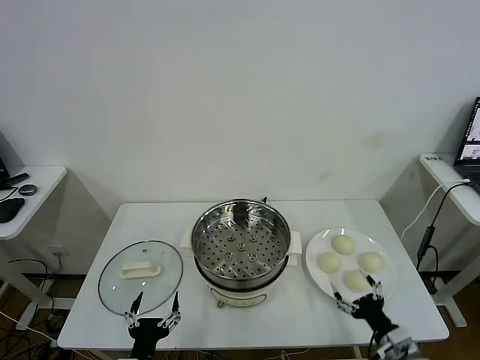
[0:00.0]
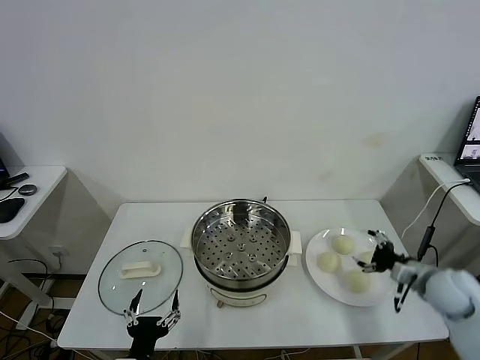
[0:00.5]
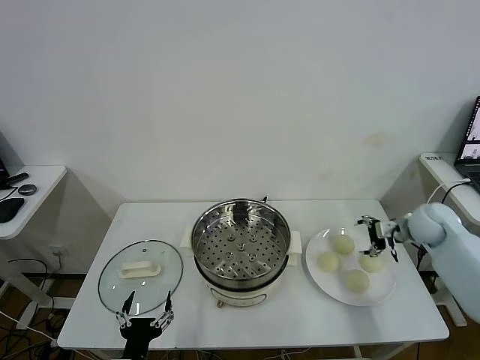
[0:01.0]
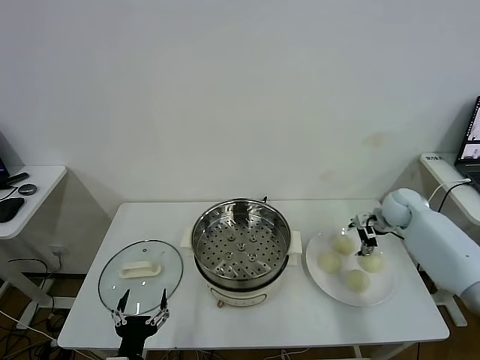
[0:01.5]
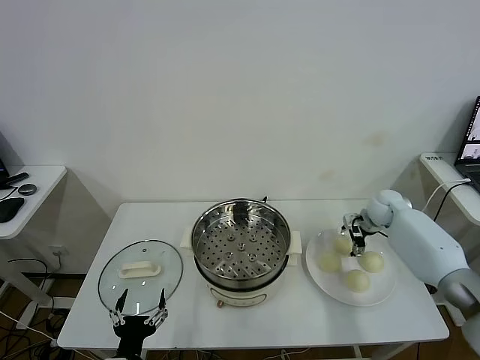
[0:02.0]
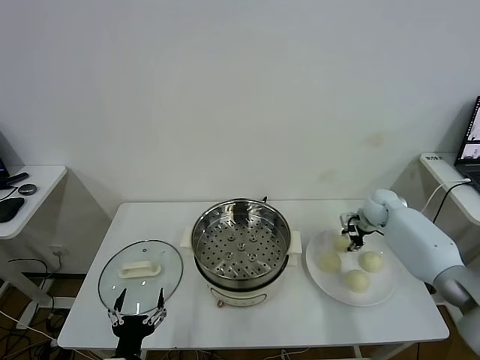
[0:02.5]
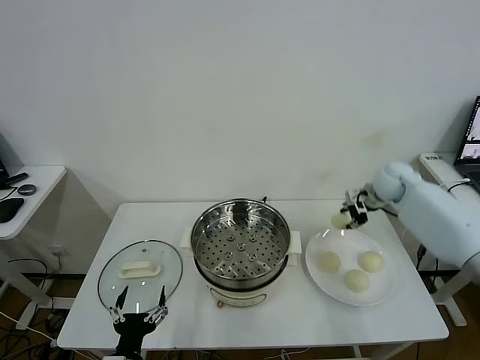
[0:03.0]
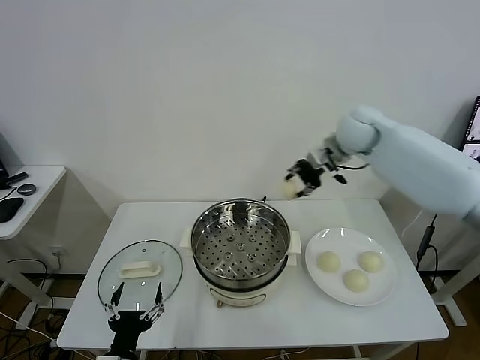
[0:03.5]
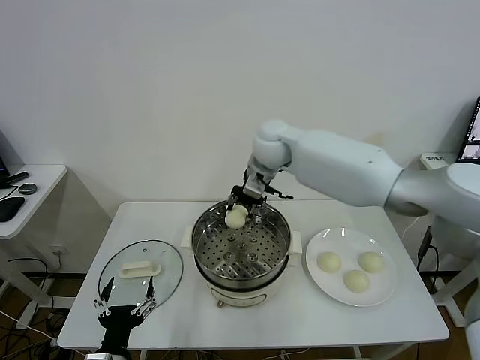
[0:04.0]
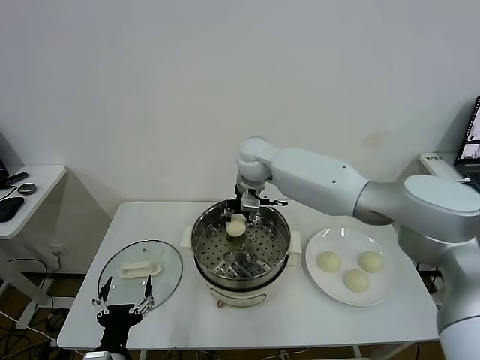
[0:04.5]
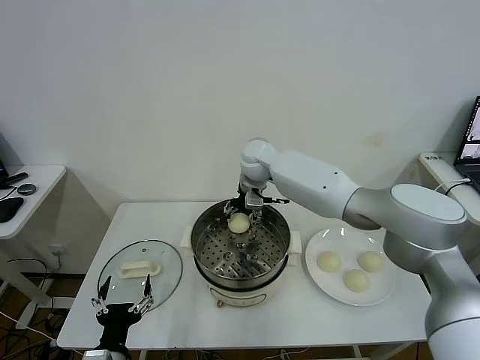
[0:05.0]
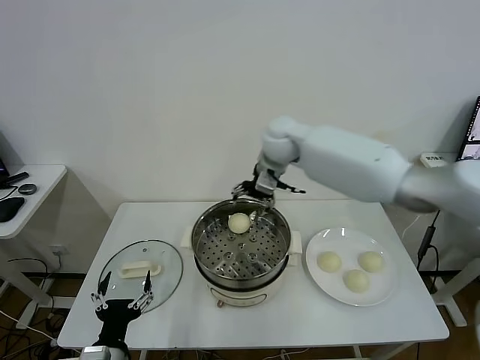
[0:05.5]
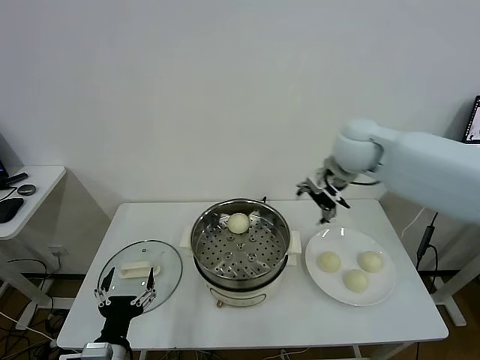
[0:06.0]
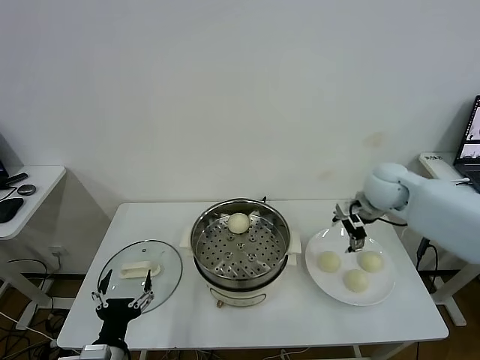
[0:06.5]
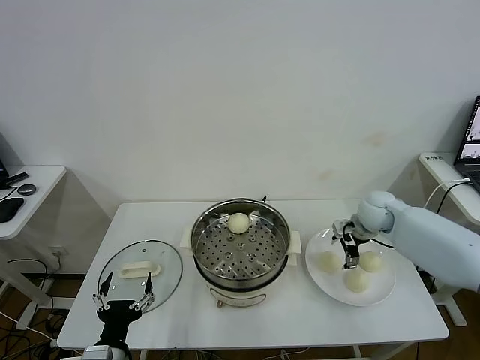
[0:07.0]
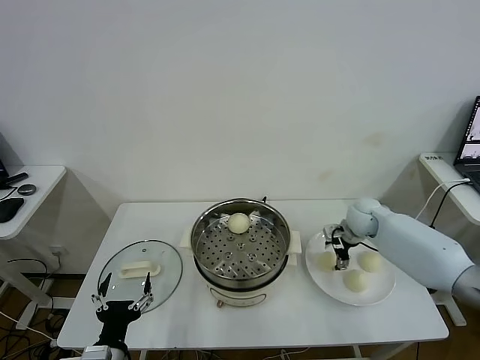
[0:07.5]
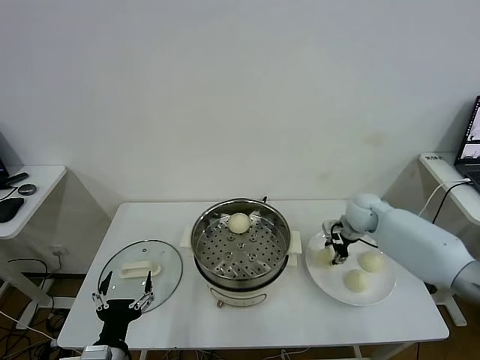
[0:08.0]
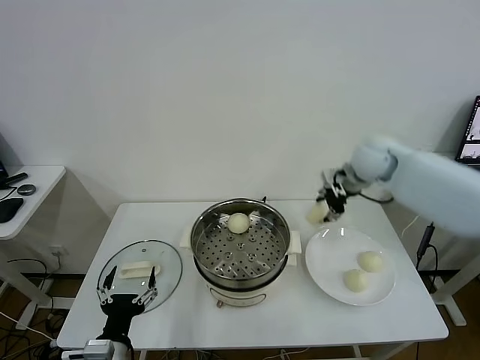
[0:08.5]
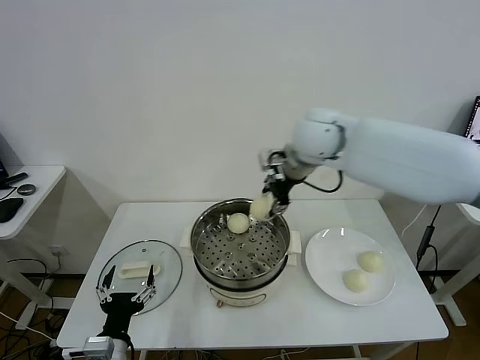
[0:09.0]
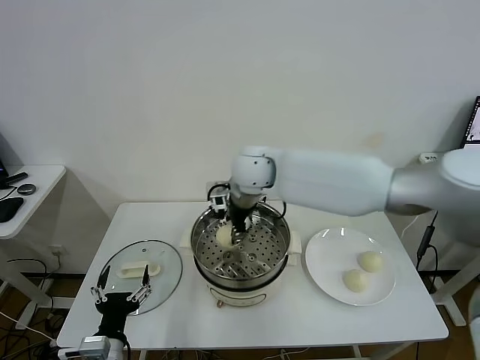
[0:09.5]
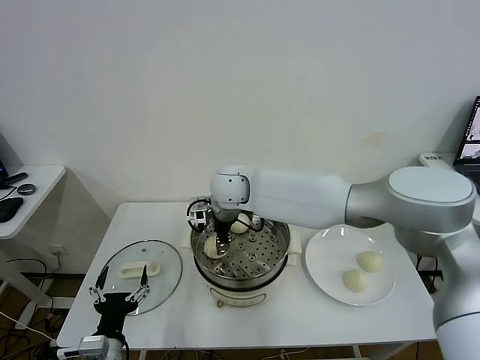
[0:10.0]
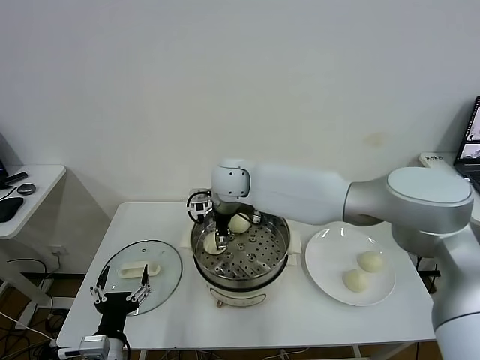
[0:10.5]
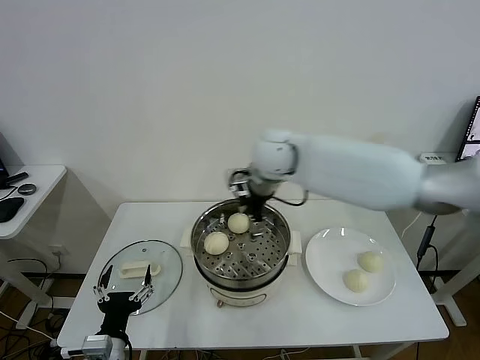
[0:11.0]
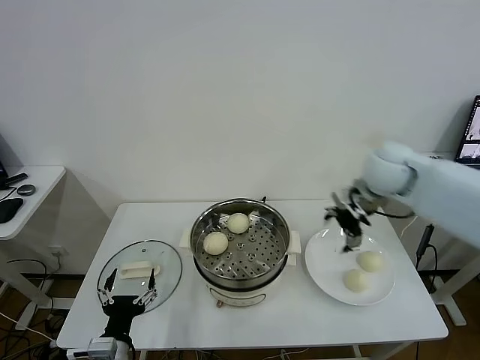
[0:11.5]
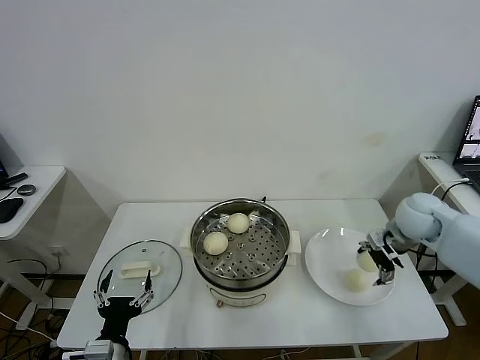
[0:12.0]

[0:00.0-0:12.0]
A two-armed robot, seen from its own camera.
Task of the whole recording: take steamed baozi put them in steamer.
Step, 0:00.0 to 0:02.0: Grasp the baozi in the plate with right gripper.
Step, 0:02.5 to 0:05.0: Place the baozi on the steamer with right gripper.
Step, 0:05.5 to 0:07.5: Grasp the baozi in the plate with right gripper.
Step, 0:08.0 to 0:10.5: Place the baozi on the steamer with right gripper.
0:02.0 to 0:04.0: The right gripper is displaced to the left and upward by about 40 cm, and closes.
0:04.0 to 0:06.0: The right gripper goes some 15 cm to the right, and opens up.
0:06.0 to 0:08.0: The right gripper goes some 25 cm downward and to the right, and closes its fingers.
0:08.0 to 0:10.0: The right gripper shifts roughly 35 cm to the left.
0:10.0 to 0:12.0: The right gripper heads to the right, covering about 40 cm, and opens its fingers.

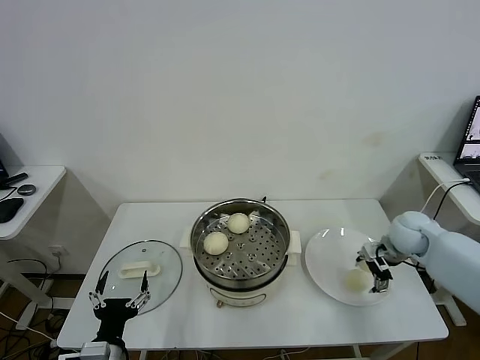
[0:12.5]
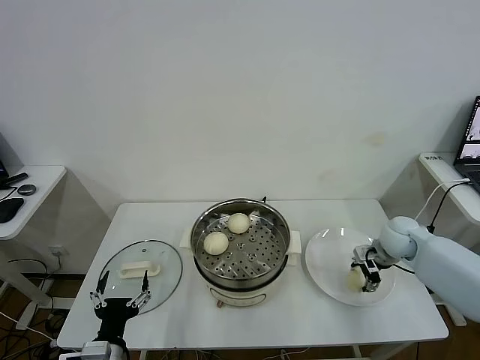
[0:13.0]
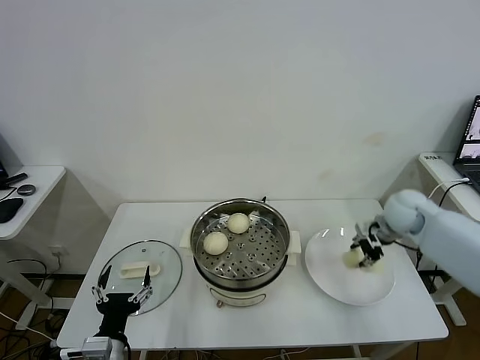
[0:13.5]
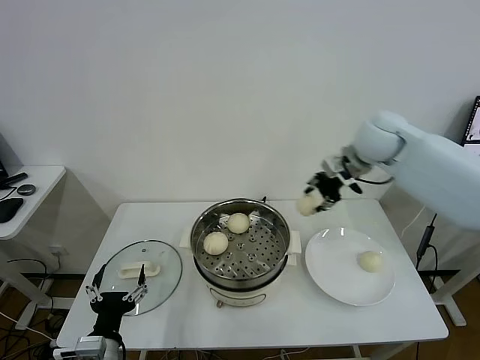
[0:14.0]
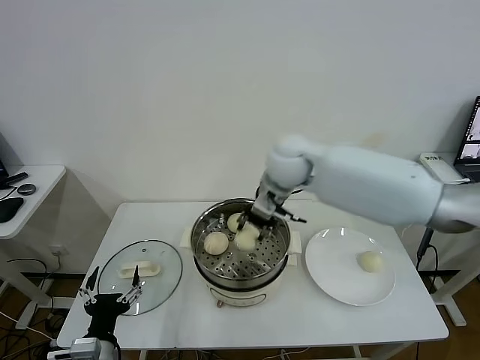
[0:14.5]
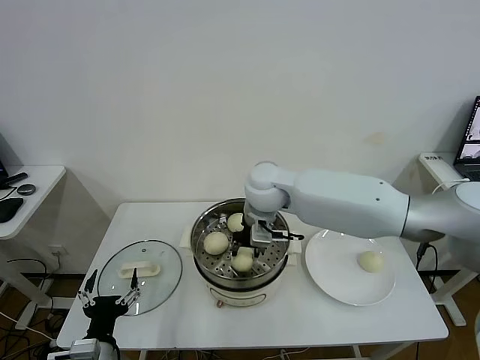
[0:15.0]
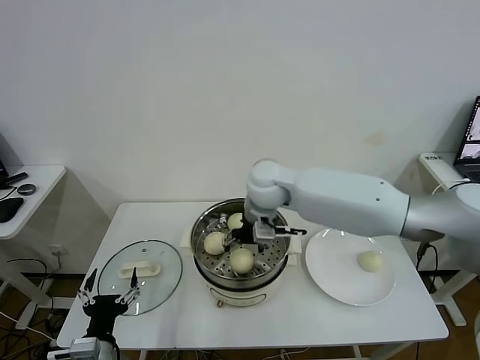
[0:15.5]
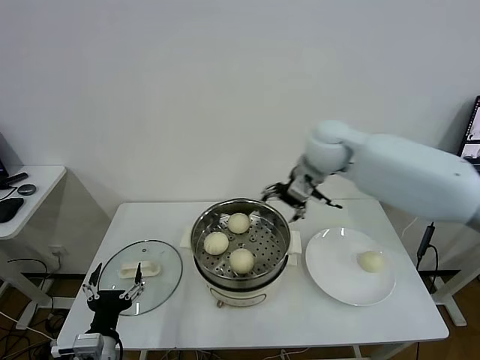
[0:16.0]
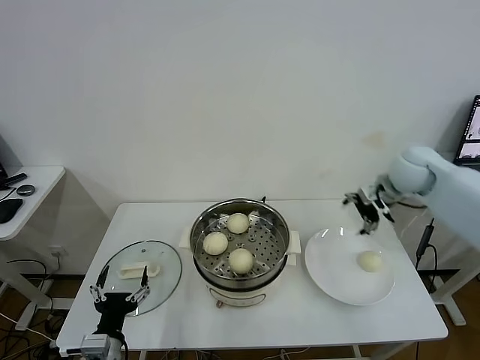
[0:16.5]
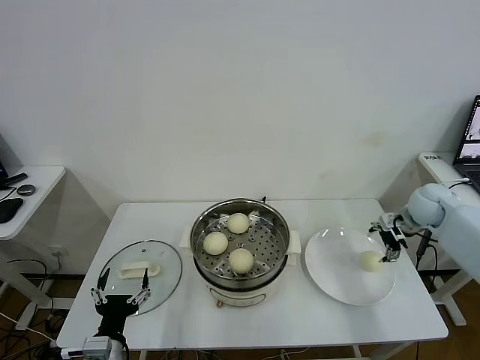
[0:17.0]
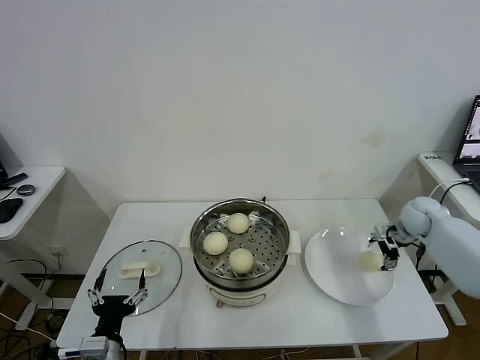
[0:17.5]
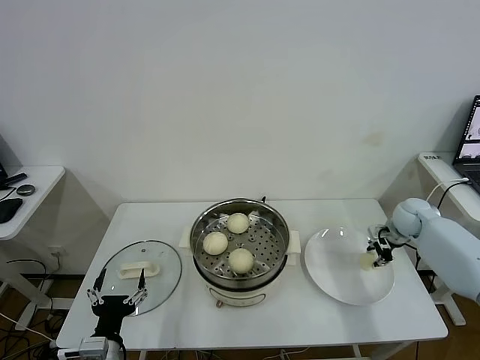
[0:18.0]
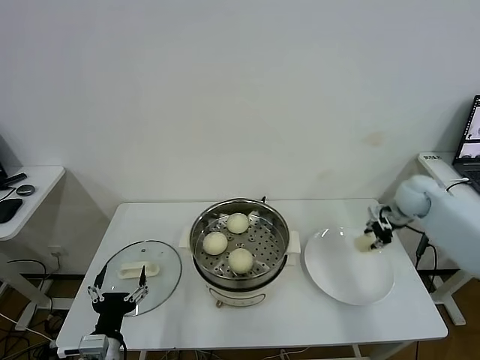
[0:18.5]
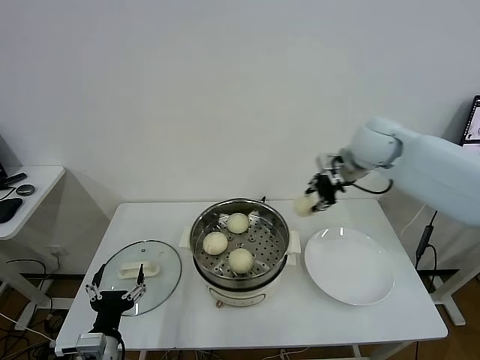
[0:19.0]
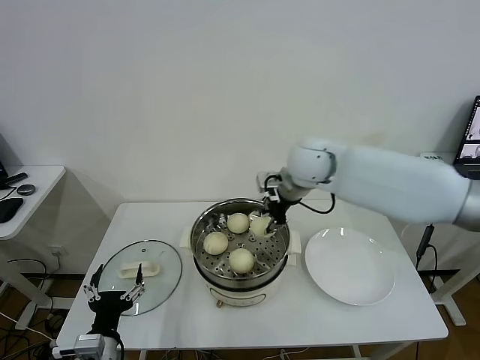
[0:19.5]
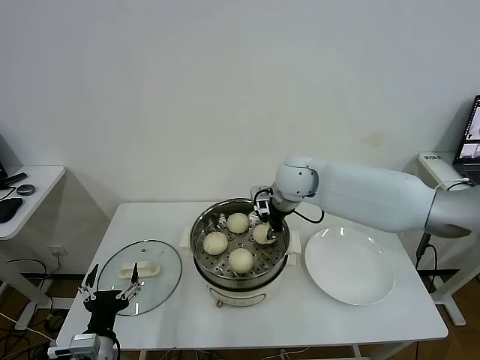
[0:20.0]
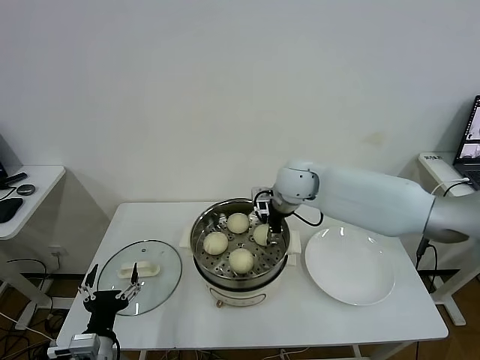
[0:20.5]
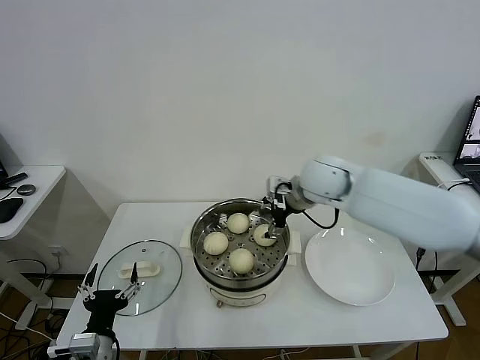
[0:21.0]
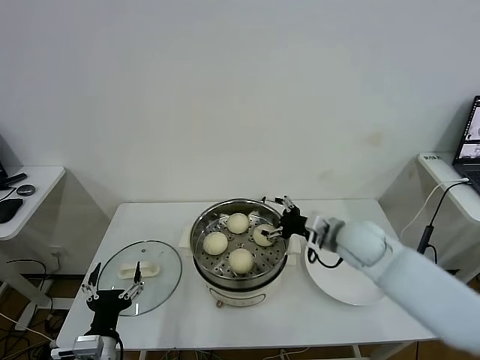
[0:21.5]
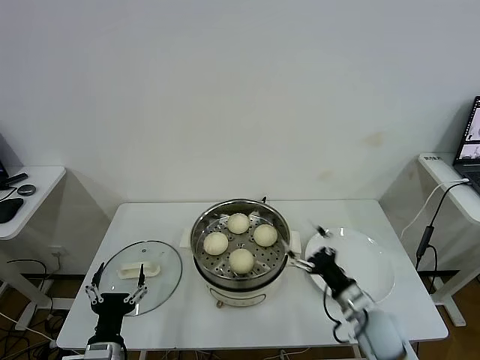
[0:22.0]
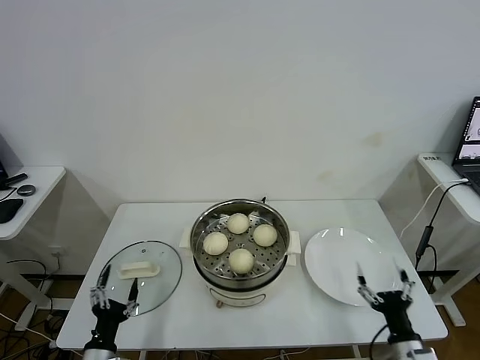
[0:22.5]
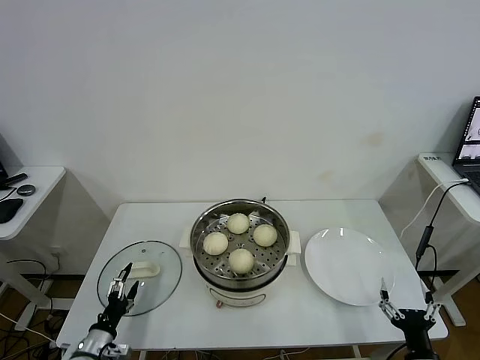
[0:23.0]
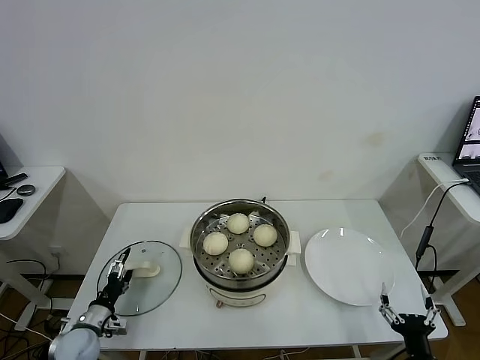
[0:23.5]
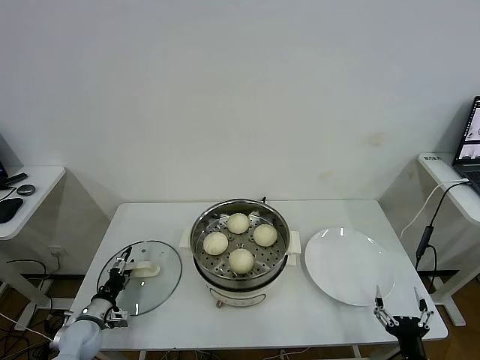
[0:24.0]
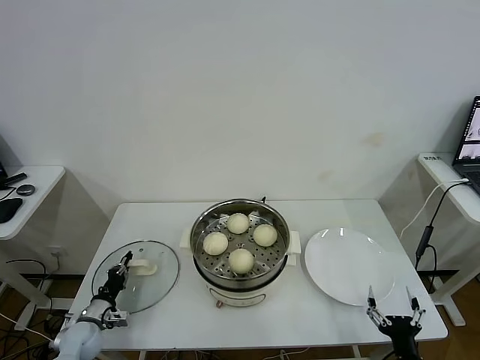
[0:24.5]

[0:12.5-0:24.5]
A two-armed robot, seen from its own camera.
Task of the whole recording: take steamed baozi put them in steamer.
Step, 0:13.5 to 0:15.5: Place the baozi on the steamer with right gripper.
Step, 0:16.0 to 0:18.0: Grasp the baozi in the plate with right gripper.
Step, 0:18.5 to 0:20.5: Place the baozi on the steamer with right gripper.
0:12.5 to 0:14.5: The right gripper goes approximately 35 cm to the left and upward, and closes up.
0:14.5 to 0:16.5: The right gripper moves to the right, some 30 cm, and opens its fingers.
0:16.5 to 0:18.5: The right gripper travels downward and to the right by about 10 cm, and closes its fingers.
0:18.5 to 0:20.5: The right gripper goes about 30 cm to the left, and opens.
0:20.5 to 0:22.5: The right gripper heads backward, downward and to the right, covering approximately 50 cm. Meanwhile the left gripper travels downward by roughly 5 cm.
0:22.5 to 0:24.5: The left gripper goes about 20 cm forward, to the left and downward, and closes. The right gripper goes some 5 cm backward.

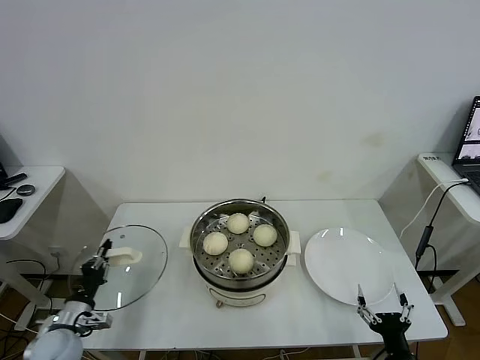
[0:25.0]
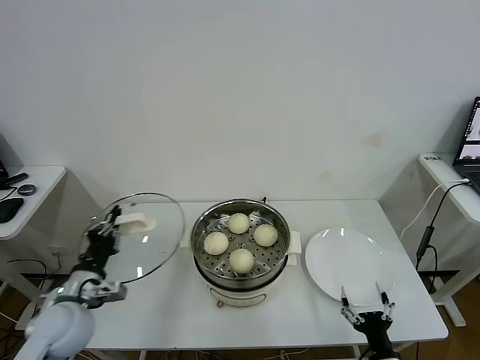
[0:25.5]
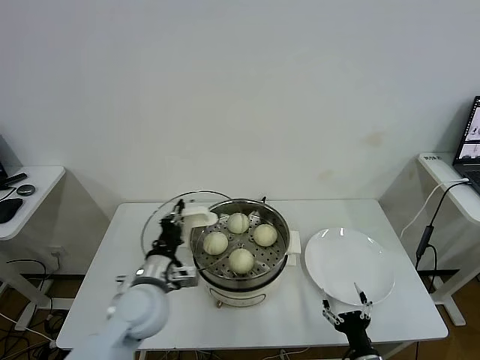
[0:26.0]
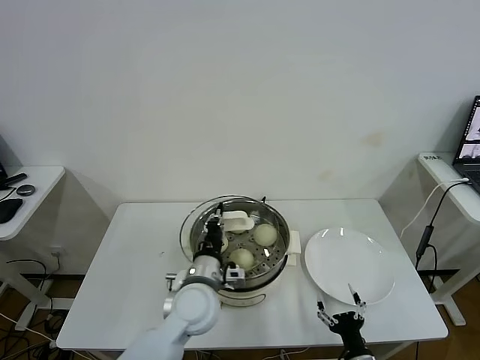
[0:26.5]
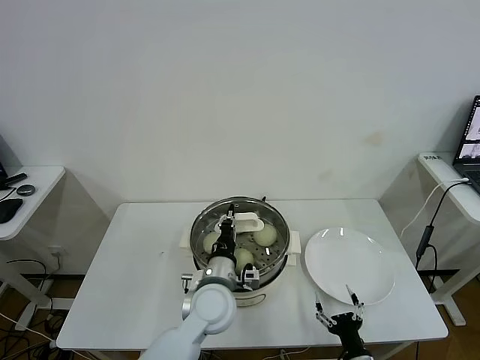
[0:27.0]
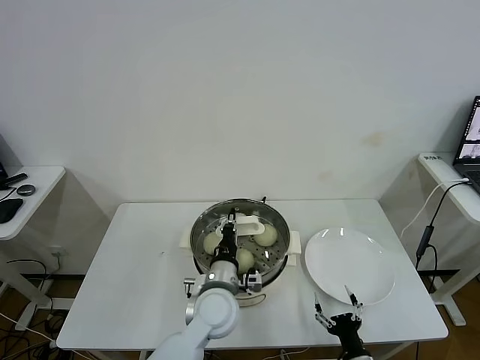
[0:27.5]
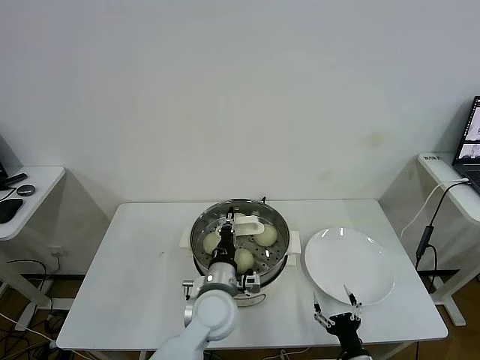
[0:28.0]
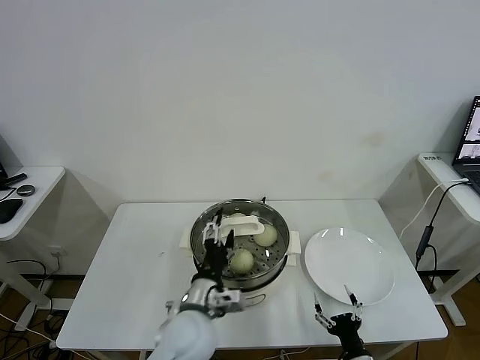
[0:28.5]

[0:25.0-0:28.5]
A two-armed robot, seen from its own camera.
Task of the whole recording: take steamed baozi put them in steamer.
0:25.0 to 0:27.0: The left gripper is displaced to the right by roughly 35 cm; the right gripper is displaced to the left by some 5 cm.
0:27.0 to 0:28.5: The left gripper moves approximately 5 cm, and opens up.
